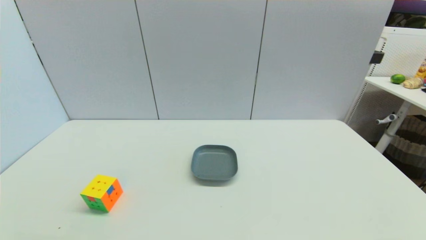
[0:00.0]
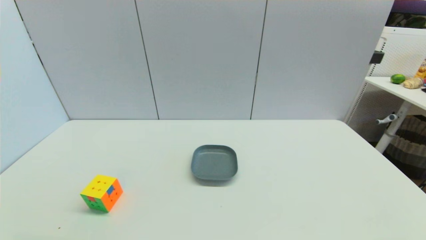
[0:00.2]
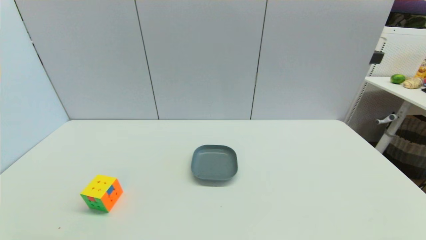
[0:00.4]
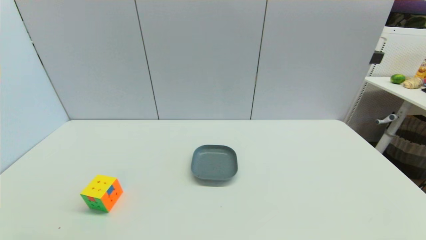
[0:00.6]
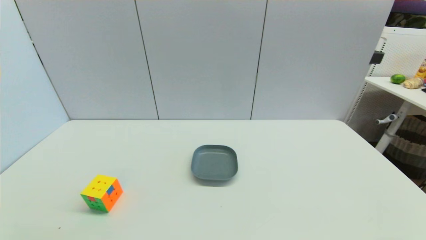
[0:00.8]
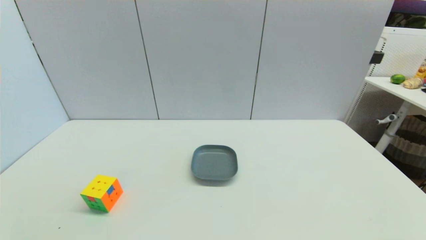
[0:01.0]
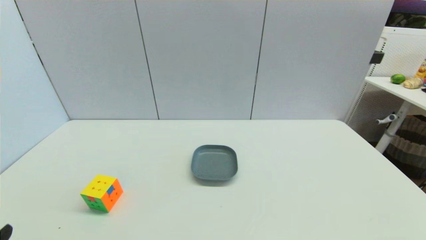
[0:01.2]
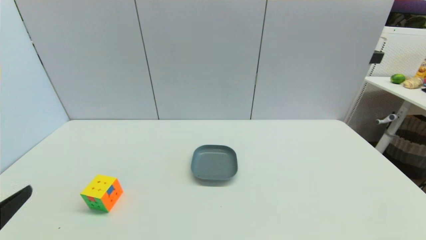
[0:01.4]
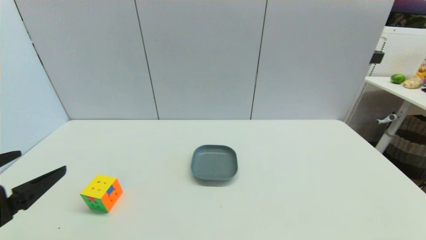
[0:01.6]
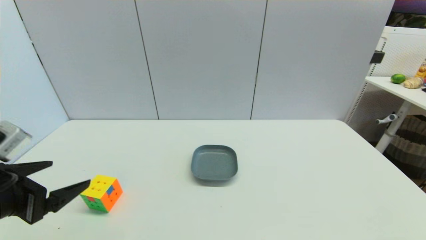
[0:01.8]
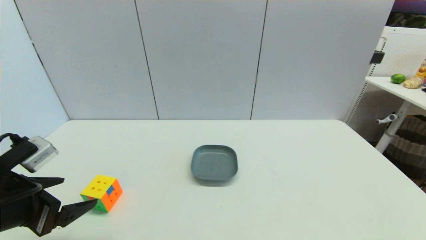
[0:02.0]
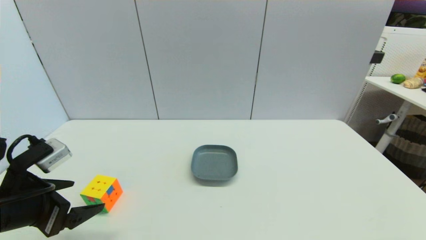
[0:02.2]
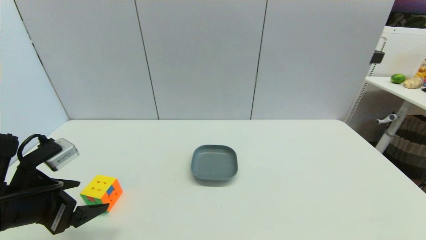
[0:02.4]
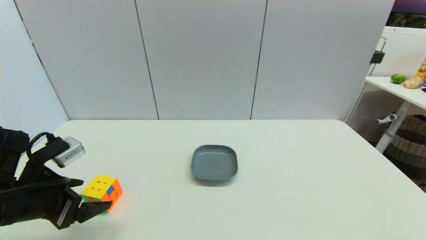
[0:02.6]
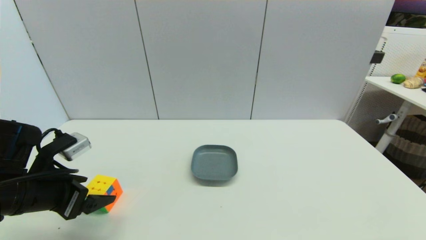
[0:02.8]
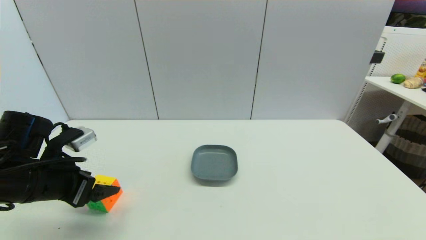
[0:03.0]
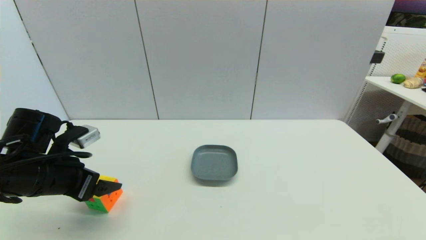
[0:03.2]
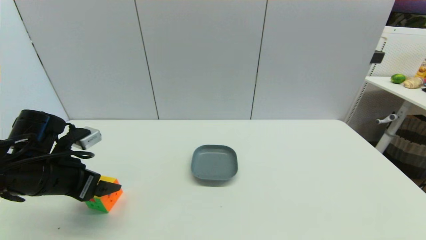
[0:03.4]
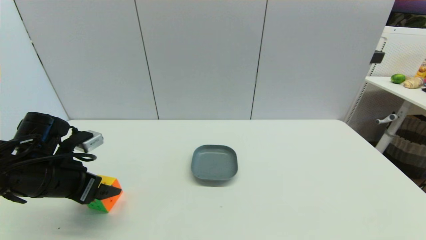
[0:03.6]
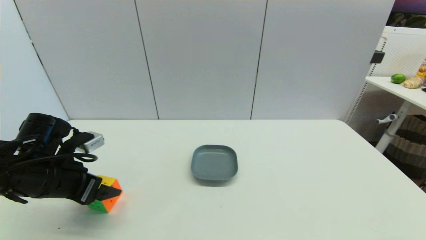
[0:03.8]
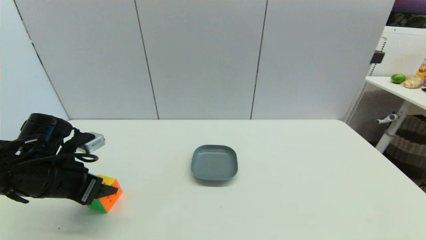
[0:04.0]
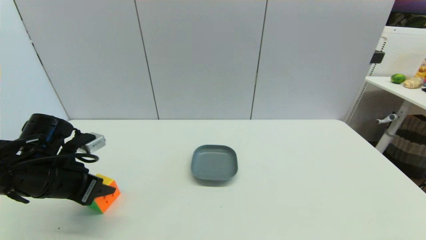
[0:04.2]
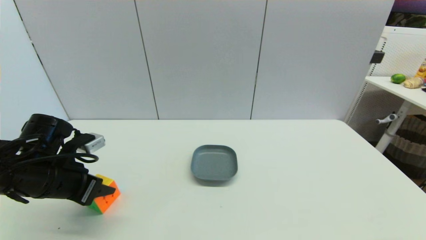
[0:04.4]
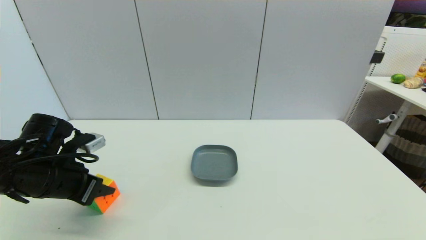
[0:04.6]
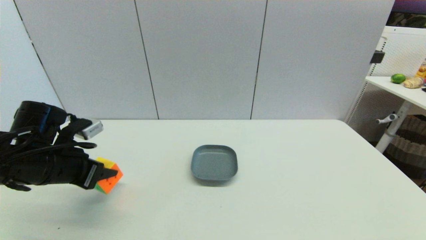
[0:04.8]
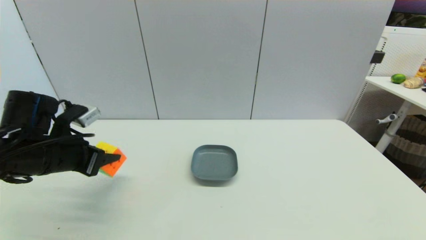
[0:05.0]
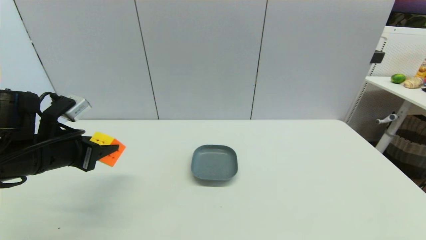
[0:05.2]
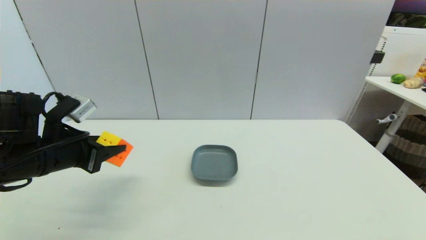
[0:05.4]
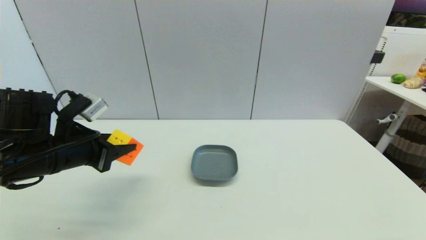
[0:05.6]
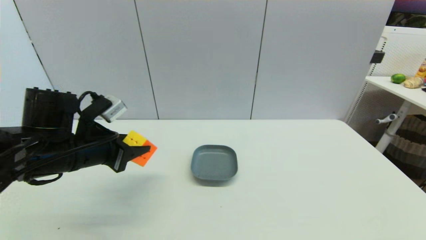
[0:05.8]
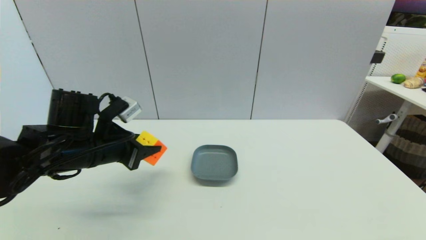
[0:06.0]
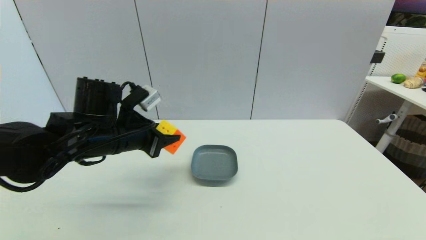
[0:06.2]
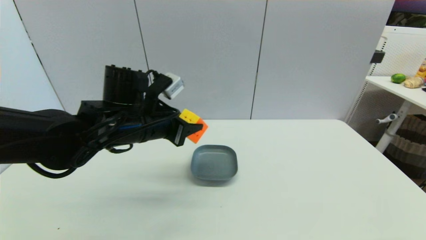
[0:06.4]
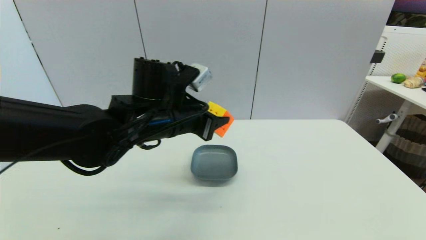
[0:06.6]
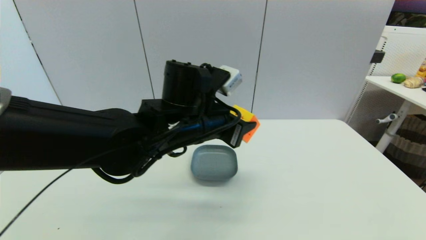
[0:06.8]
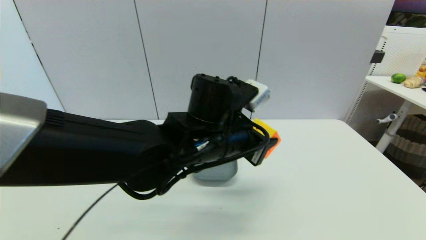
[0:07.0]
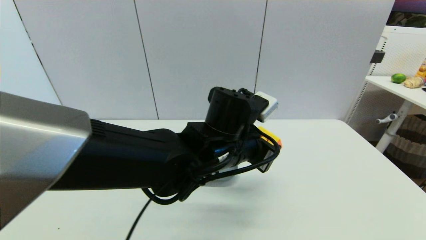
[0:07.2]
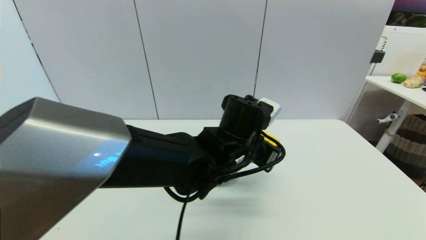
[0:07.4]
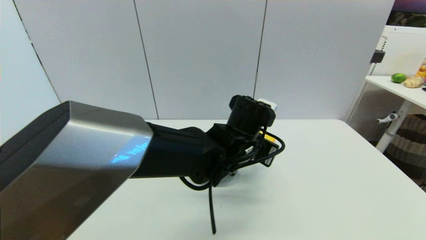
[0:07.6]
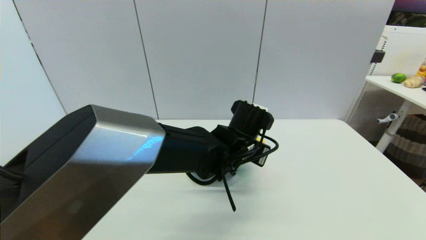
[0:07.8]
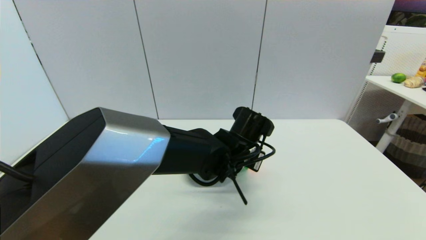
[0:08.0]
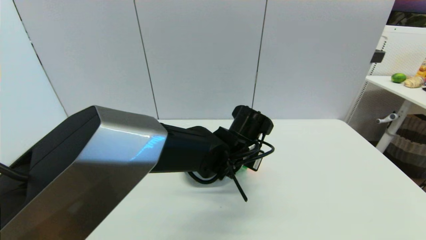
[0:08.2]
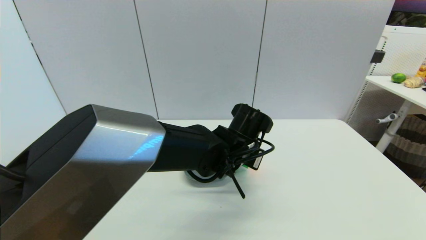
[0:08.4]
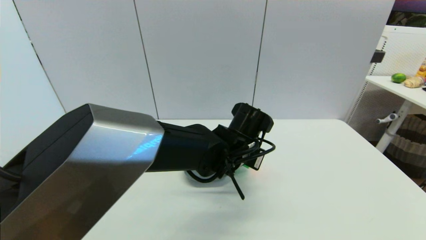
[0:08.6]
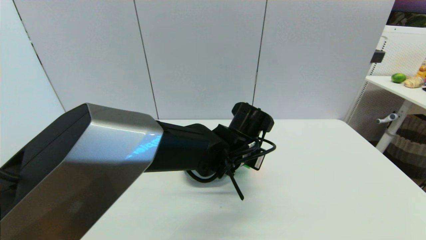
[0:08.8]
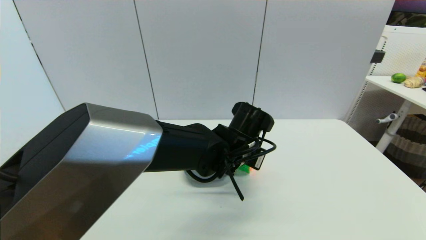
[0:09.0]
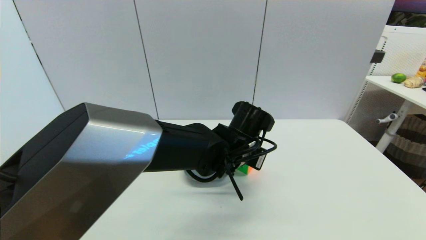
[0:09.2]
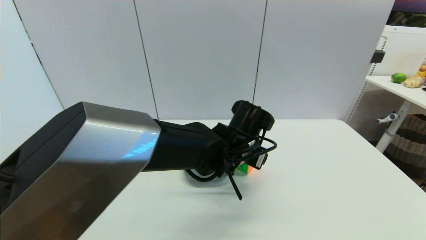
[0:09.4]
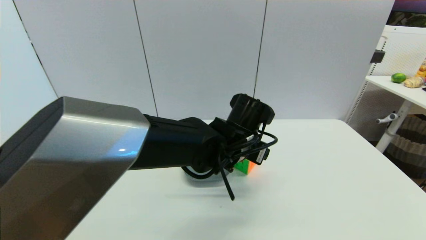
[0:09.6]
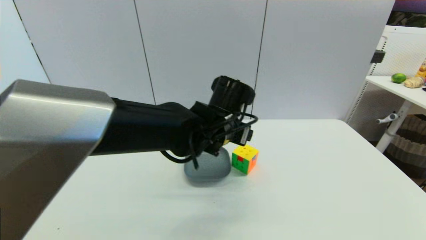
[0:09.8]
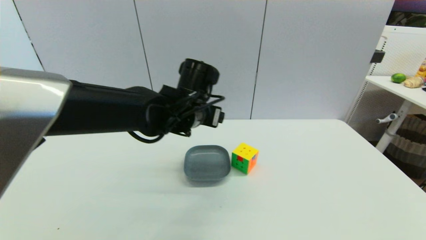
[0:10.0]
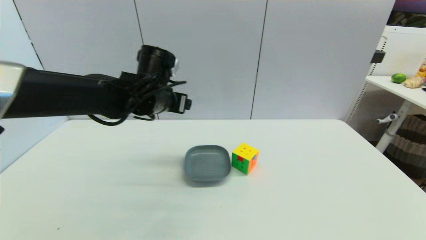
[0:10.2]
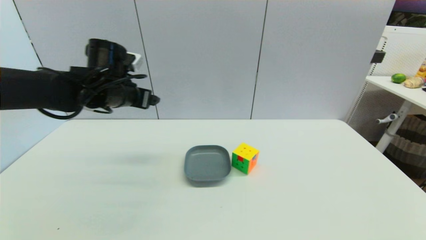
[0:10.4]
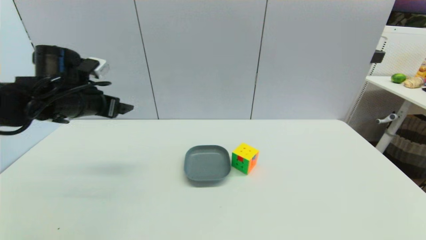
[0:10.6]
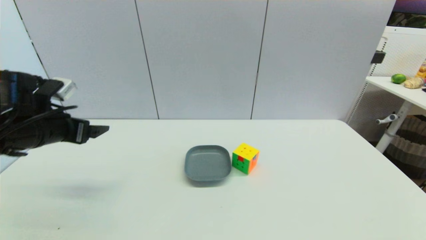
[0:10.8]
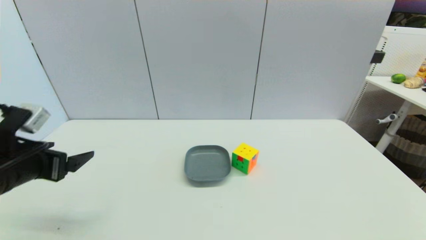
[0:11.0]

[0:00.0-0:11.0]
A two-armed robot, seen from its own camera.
Step, 0:01.2 to 0:04.2: Grasp the magic cube with left gripper.
Step, 0:04.4 to 0:09.8: Place the magic cube on the table with left gripper.
0:00.0 to 0:01.6: The left gripper is displaced upward and forward by approximately 20 cm.
0:01.6 to 0:03.2: The left gripper heads forward and downward, covering approximately 15 cm.
0:03.2 to 0:04.8: The left gripper closes.
0:04.8 to 0:06.2: The left gripper travels to the right by some 10 cm.
0:06.2 to 0:07.8: The left gripper travels to the right by some 20 cm.
0:07.8 to 0:09.4: The left gripper opens its fingers.
0:09.4 to 0:11.0: The left gripper goes approximately 35 cm to the left.

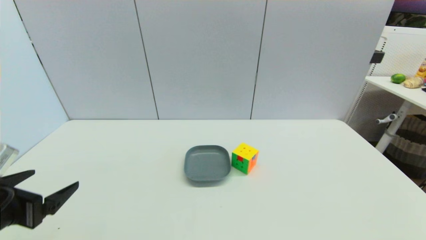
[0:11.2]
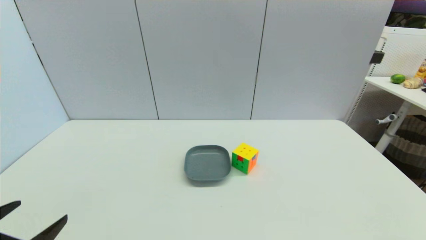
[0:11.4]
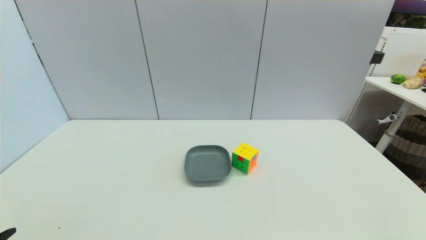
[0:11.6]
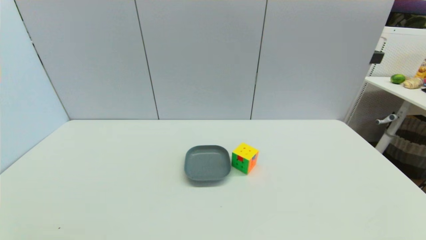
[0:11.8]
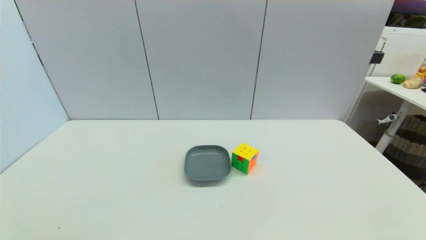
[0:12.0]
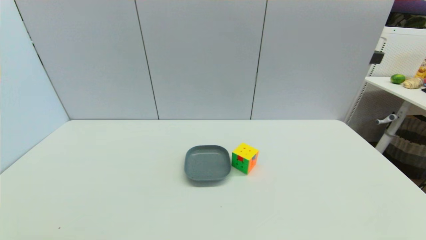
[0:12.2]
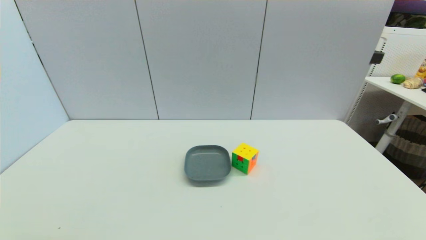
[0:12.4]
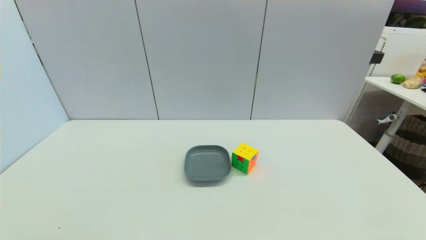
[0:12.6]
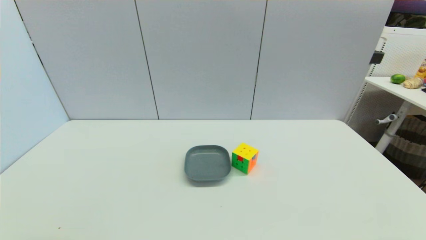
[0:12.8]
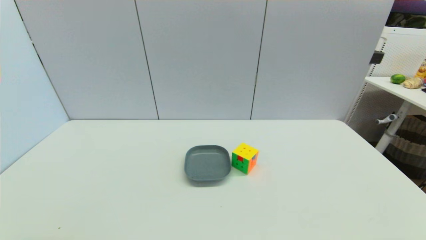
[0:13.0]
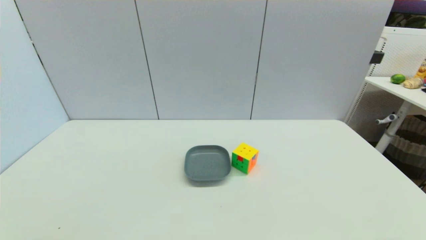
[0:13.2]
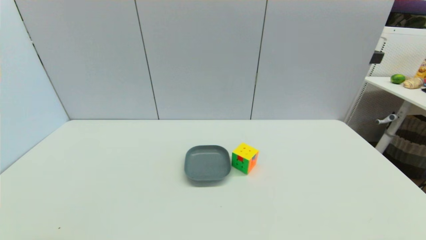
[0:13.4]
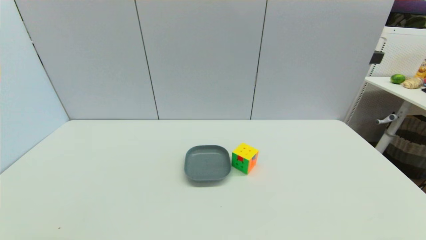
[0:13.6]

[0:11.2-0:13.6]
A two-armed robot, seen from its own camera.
0:11.2 to 0:12.4: The left gripper heads backward and downward, covering approximately 15 cm.
0:12.4 to 0:13.6: Both grippers stay about where they are.
